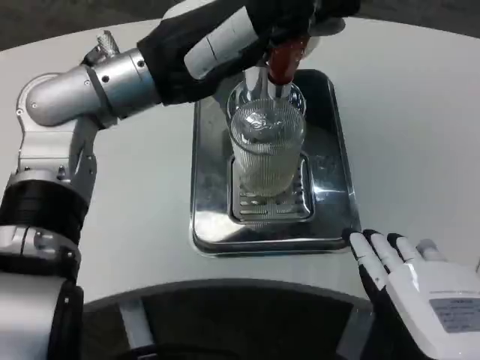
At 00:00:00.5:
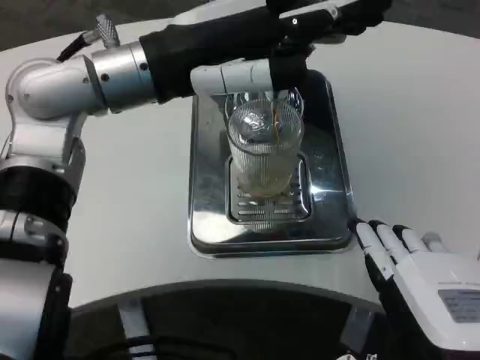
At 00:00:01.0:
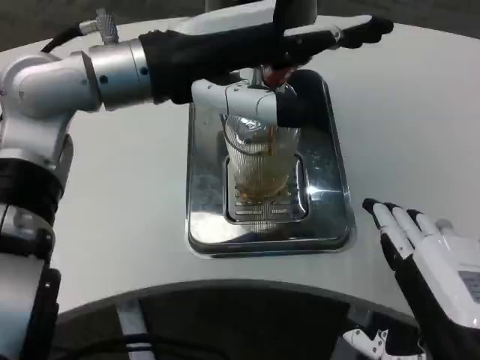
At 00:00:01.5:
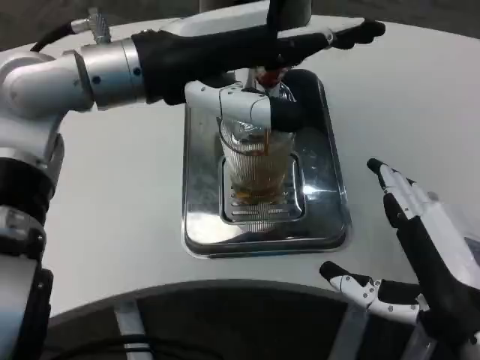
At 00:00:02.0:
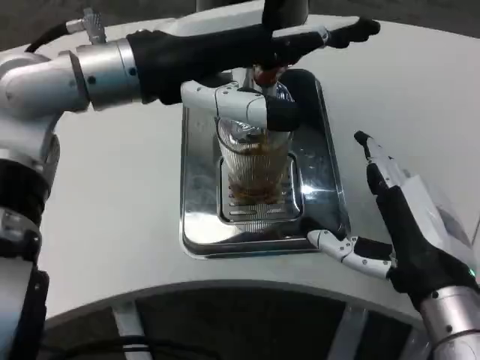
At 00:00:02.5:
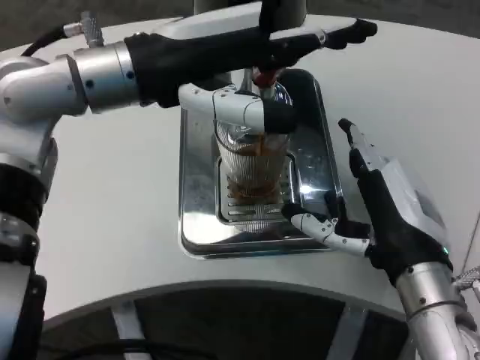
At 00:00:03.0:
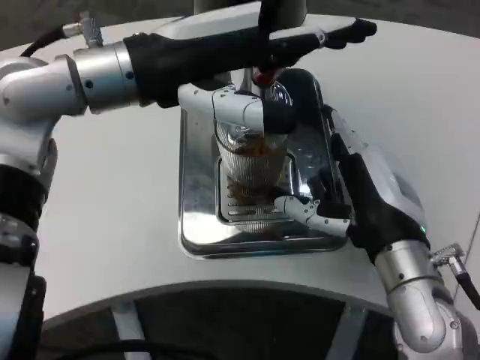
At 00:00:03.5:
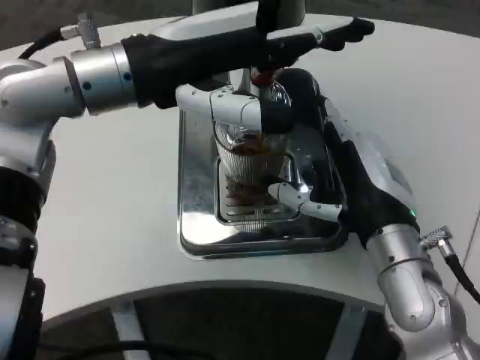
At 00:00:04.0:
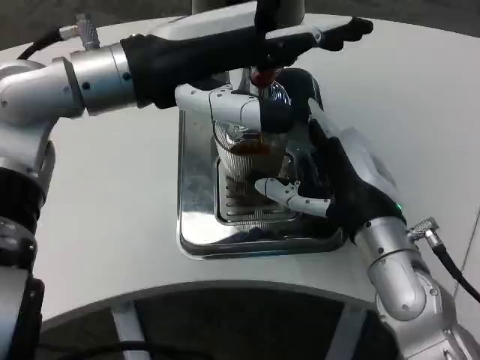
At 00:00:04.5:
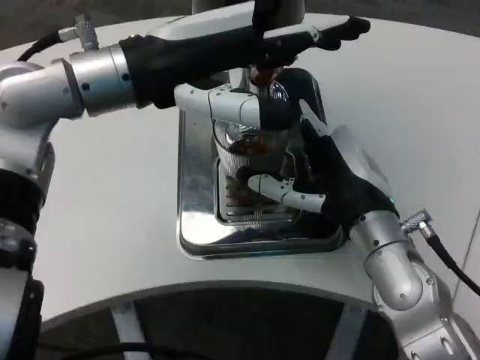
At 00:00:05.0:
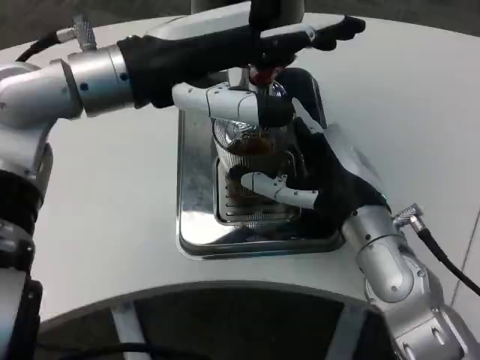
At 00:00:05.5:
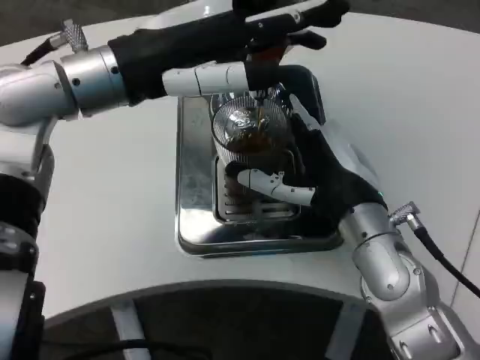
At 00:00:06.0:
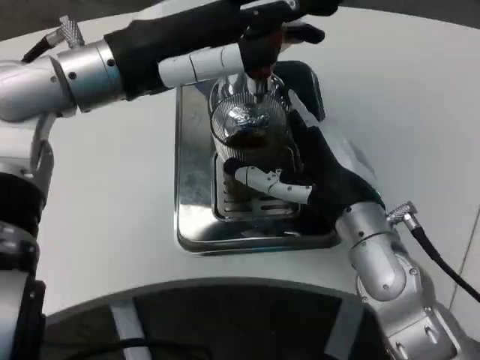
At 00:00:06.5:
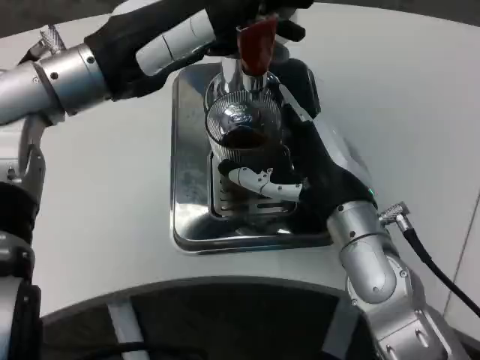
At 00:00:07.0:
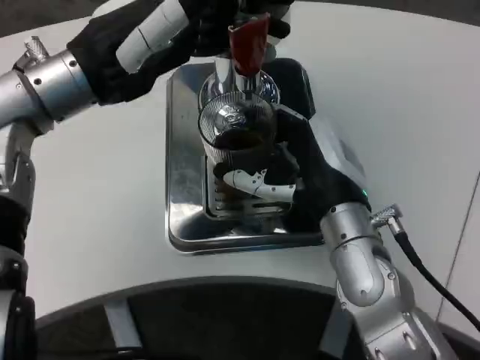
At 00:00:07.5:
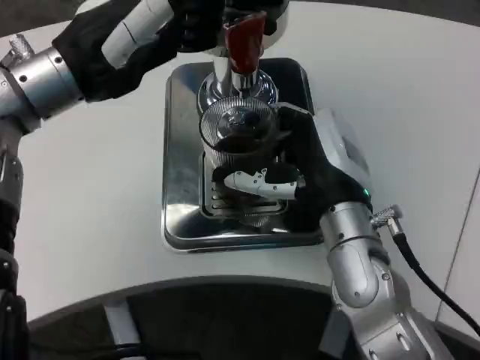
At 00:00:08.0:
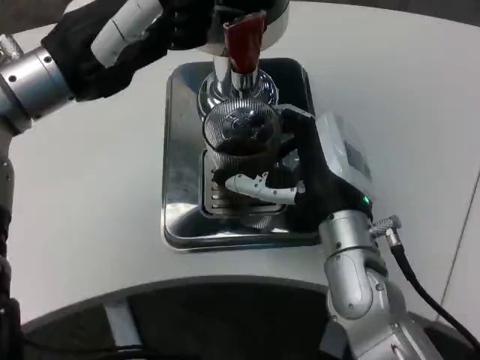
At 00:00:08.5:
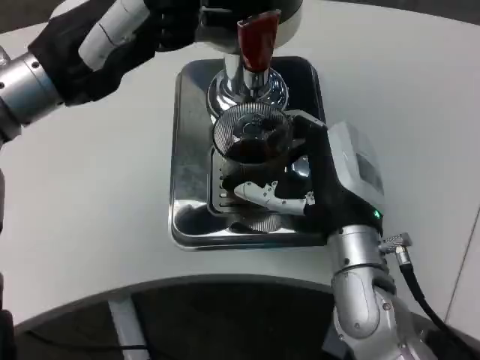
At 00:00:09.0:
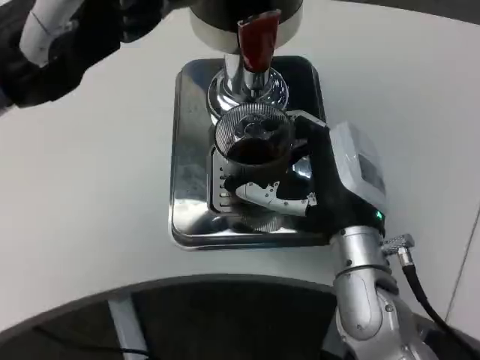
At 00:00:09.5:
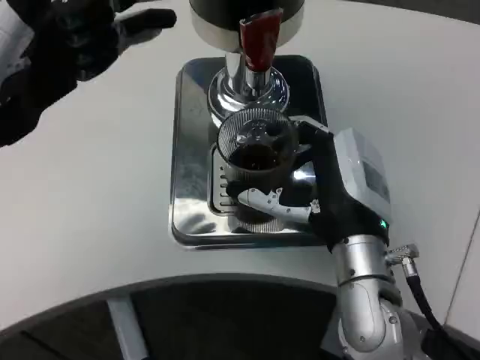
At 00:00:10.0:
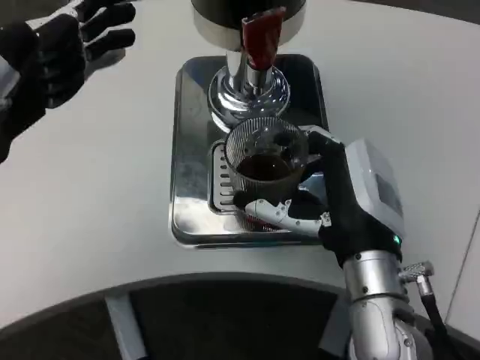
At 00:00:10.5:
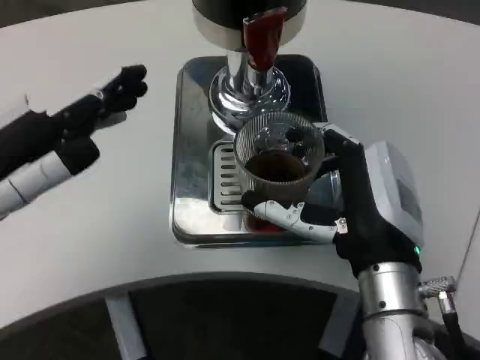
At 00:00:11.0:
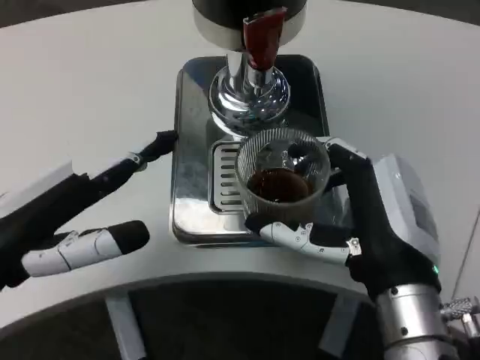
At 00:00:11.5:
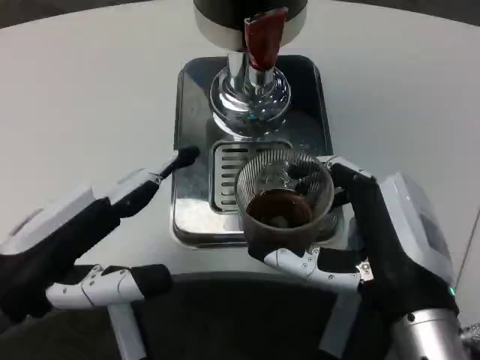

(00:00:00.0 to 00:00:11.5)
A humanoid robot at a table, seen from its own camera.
Task of the whole recording: Grasp the cup under the faucet to collect the drink, then remove the cup.
00:00:00.0 - 00:00:02.0: The right hand shifts some 10 cm forward.
00:00:02.0 - 00:00:04.0: The right hand travels forward by about 5 cm.
00:00:07.5 - 00:00:09.5: The left hand moves backward and to the left, some 10 cm.
00:00:09.5 - 00:00:11.5: The right hand moves backward, roughly 10 cm. The left hand goes roughly 10 cm downward and backward.

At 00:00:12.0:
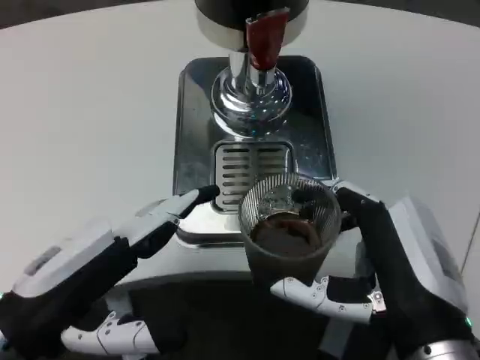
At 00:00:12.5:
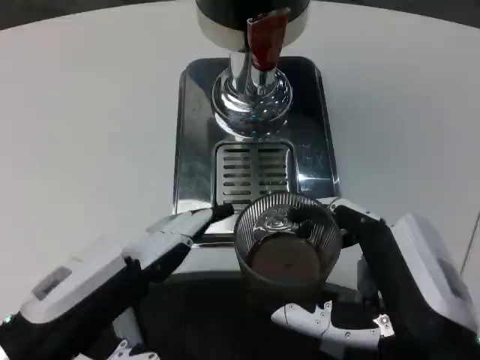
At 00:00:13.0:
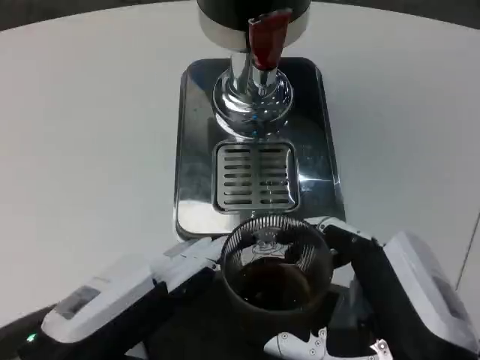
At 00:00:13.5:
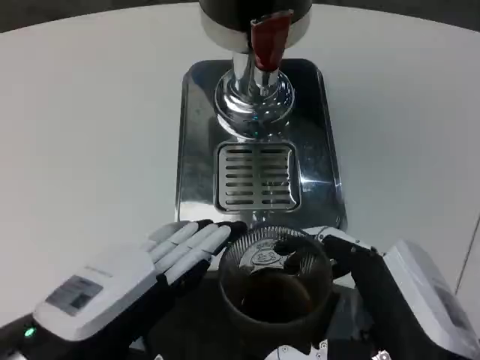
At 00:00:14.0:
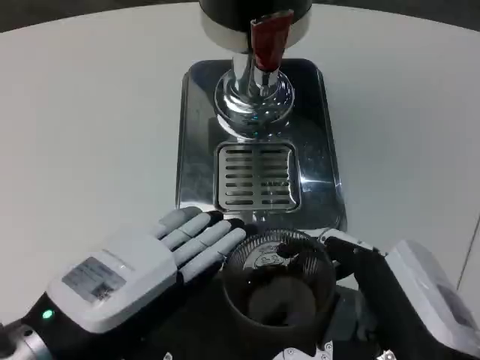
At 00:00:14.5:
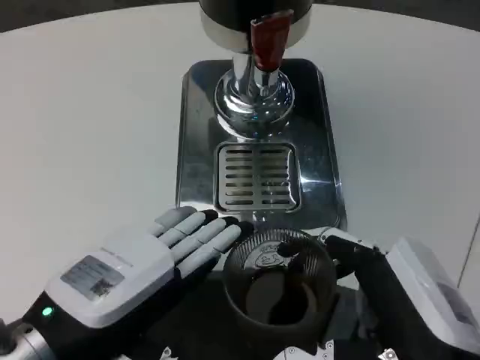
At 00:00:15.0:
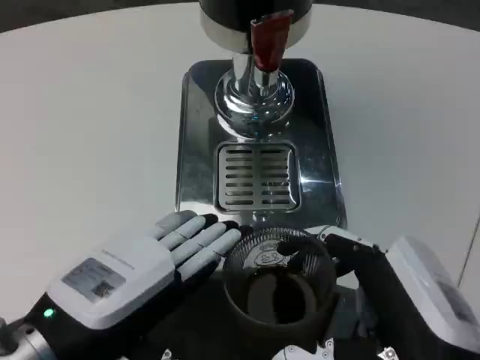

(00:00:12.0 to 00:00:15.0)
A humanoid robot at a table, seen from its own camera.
Task of the whole recording: Grasp the cup under the faucet to collect the drink, then remove the cup.
00:00:13.5 - 00:00:15.0: The hands move only a little.

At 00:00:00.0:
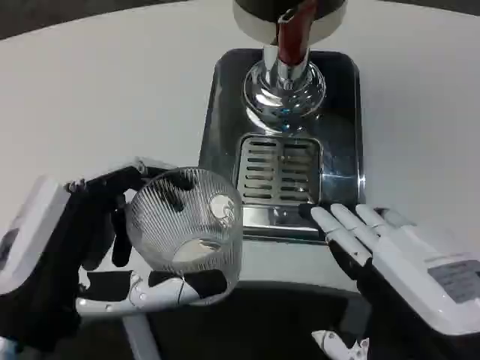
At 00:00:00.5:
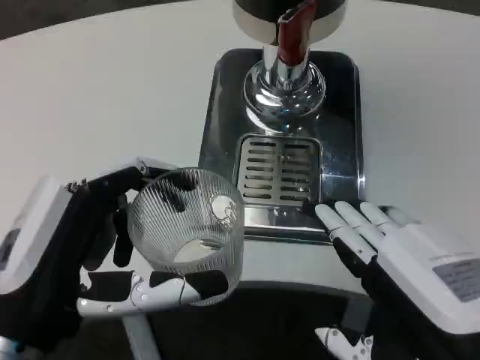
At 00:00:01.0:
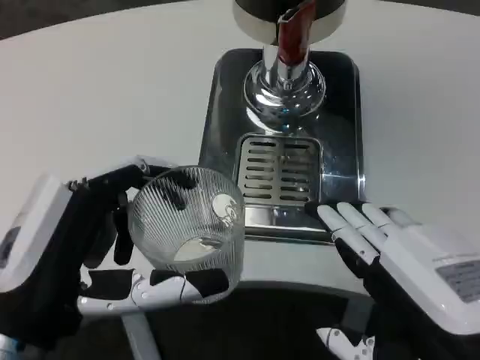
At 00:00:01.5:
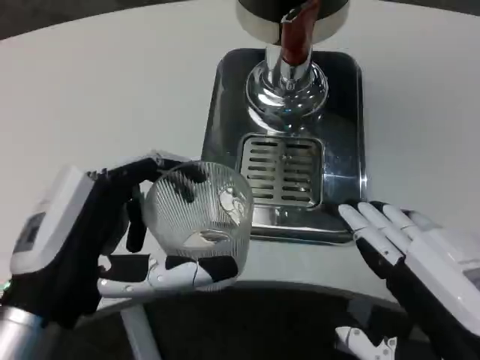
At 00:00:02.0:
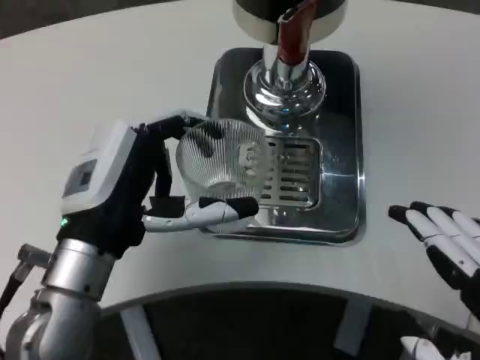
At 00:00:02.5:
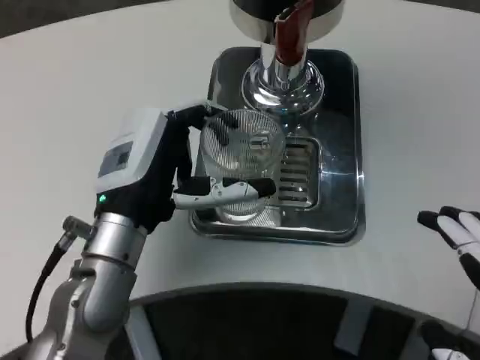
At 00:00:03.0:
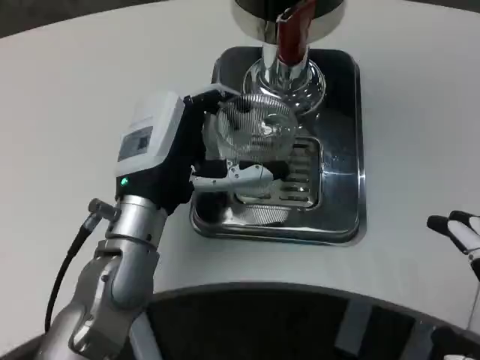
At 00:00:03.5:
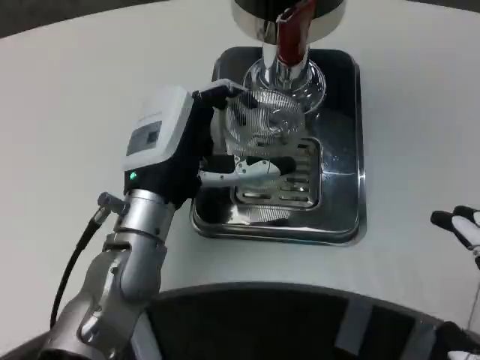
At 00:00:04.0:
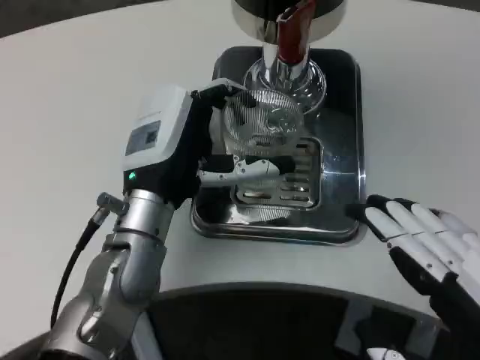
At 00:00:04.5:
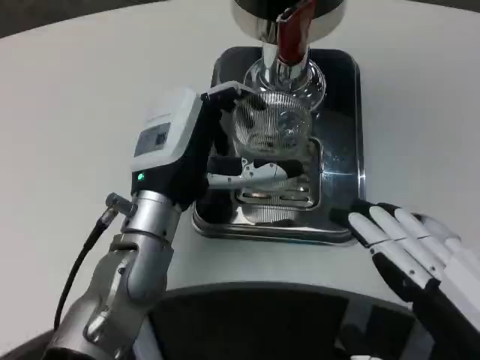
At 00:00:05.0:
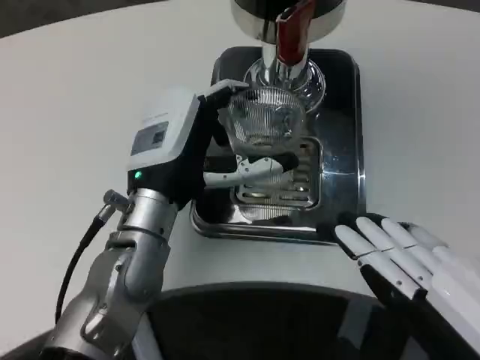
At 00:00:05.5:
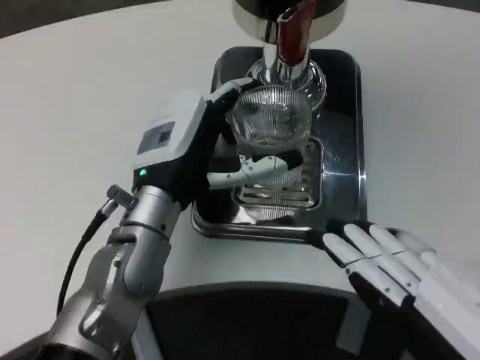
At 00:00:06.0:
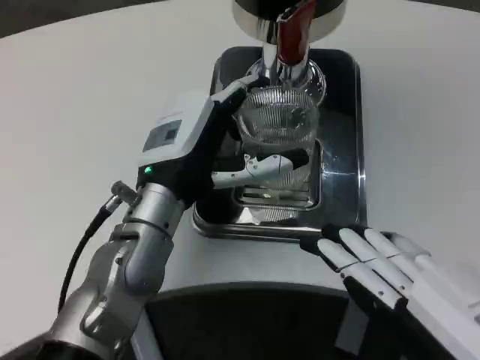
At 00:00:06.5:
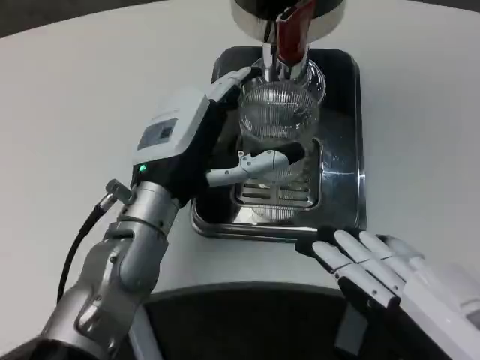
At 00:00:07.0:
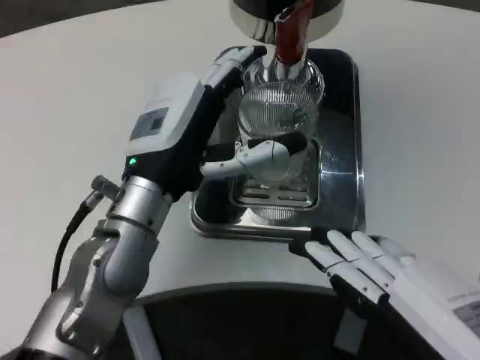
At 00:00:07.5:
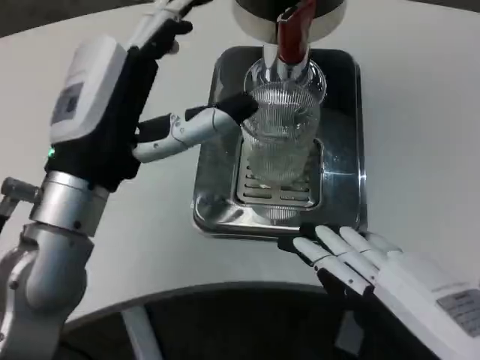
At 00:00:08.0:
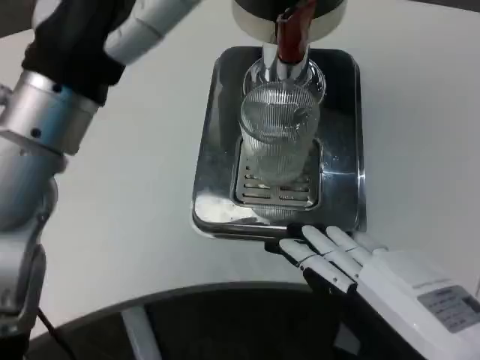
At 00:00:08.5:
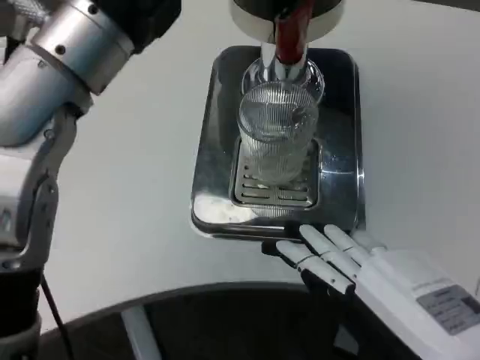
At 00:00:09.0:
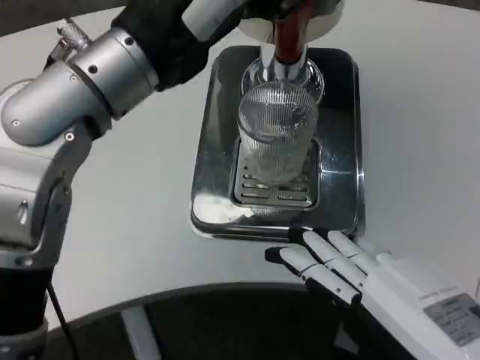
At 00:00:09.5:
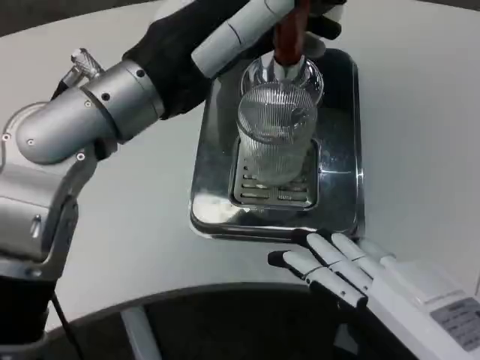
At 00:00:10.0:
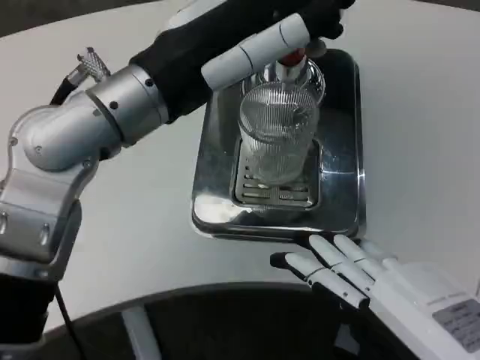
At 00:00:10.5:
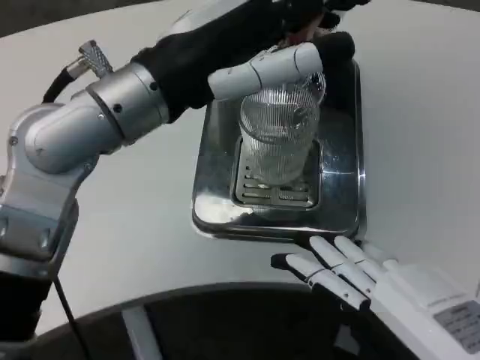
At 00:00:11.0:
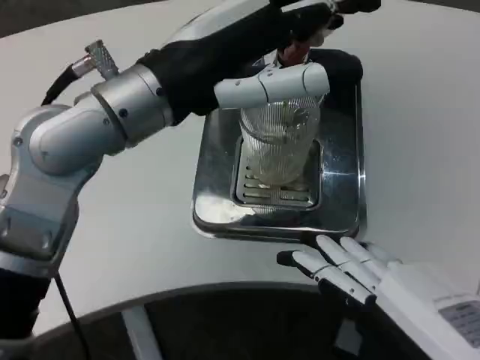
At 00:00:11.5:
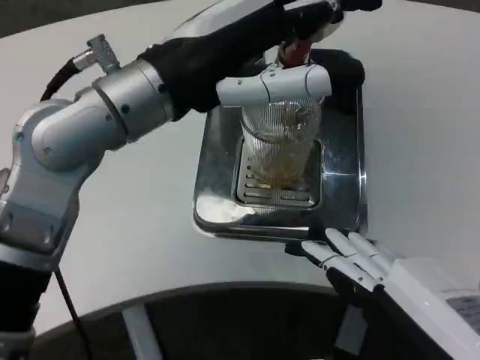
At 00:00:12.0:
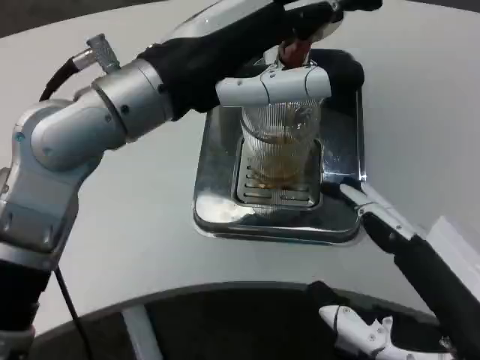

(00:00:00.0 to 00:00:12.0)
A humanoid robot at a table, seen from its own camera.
Task of the whole recording: Grasp the cup under the faucet to collect the drink, then remove the cup.
00:00:00.0 - 00:00:02.0: The left hand travels forward by some 10 cm. Meanwhile the right hand shifts by roughly 5 cm.
00:00:02.0 - 00:00:04.0: The left hand travels forward by about 5 cm.
00:00:04.0 - 00:00:06.0: The hands make only small movements.
00:00:06.0 - 00:00:08.0: The left hand goes about 15 cm upward and backward.
